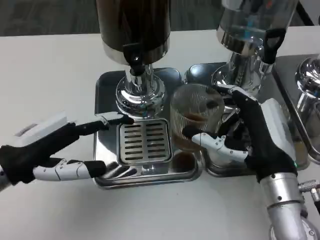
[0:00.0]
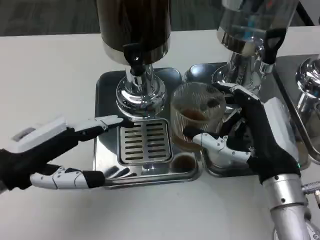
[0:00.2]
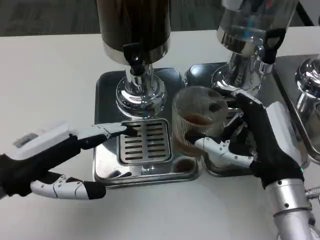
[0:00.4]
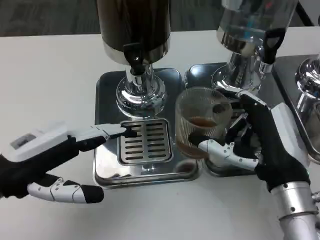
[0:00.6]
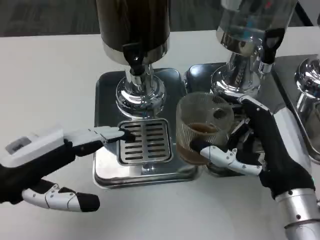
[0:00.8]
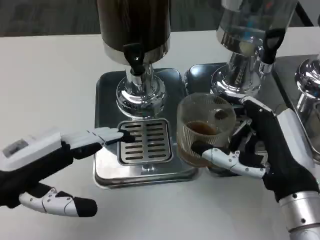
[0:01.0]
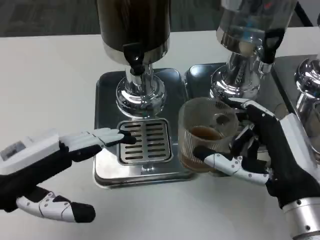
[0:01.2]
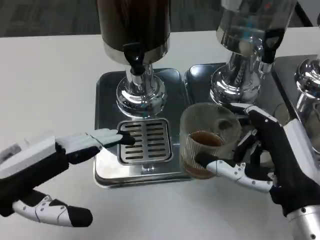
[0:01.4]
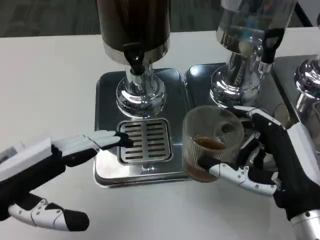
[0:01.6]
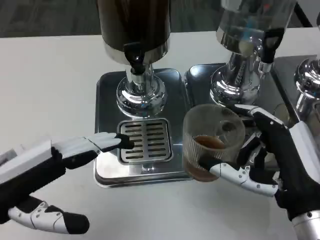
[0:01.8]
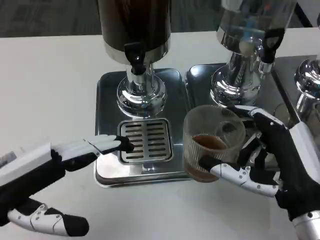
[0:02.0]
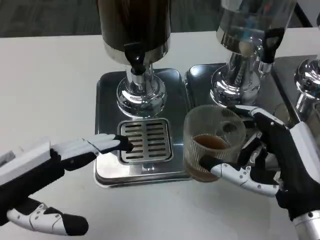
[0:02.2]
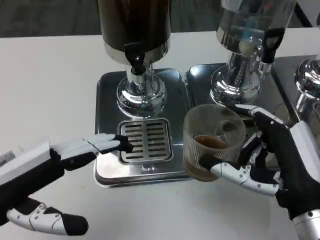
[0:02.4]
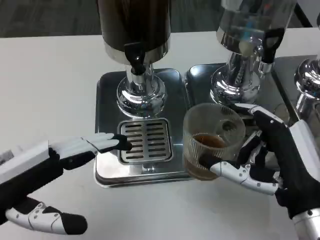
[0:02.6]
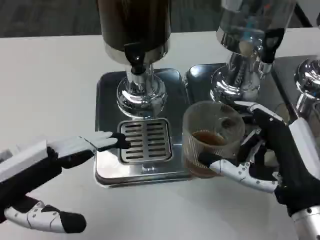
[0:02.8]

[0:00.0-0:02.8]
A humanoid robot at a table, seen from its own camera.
Task of the whole recording: Grasp the cup under the faucet to collect the drink, then remove the cup.
0:00.0 to 0:01.4: The right hand is displaced backward by approximately 5 cm.
0:01.4 to 0:02.8: Both hands stay put.
